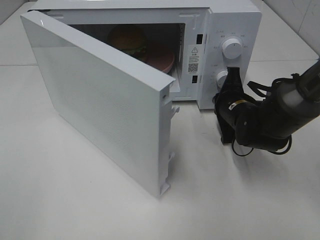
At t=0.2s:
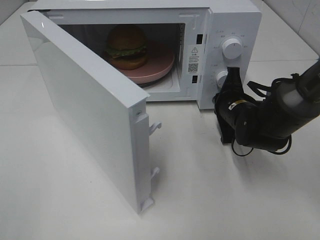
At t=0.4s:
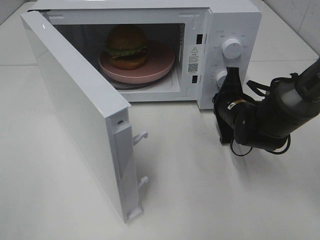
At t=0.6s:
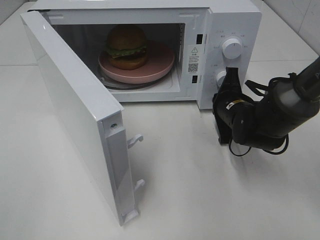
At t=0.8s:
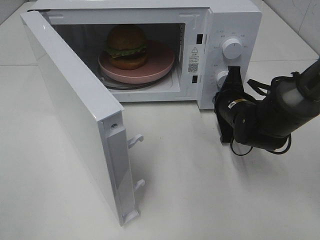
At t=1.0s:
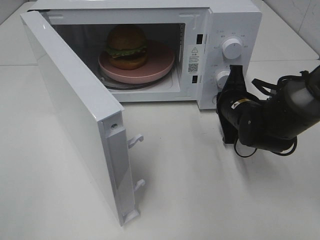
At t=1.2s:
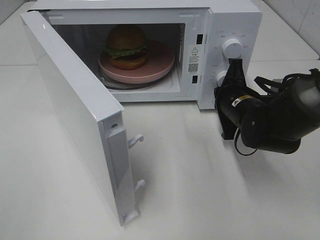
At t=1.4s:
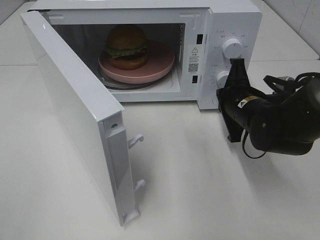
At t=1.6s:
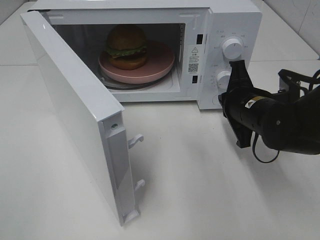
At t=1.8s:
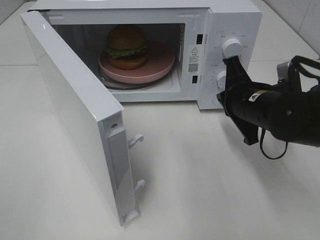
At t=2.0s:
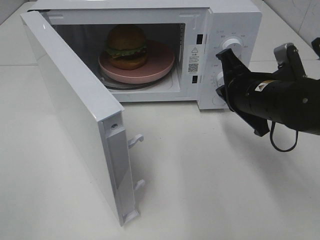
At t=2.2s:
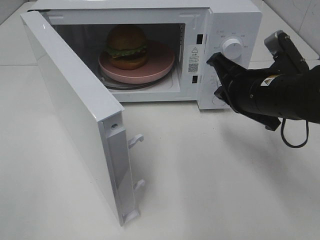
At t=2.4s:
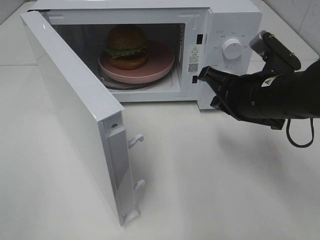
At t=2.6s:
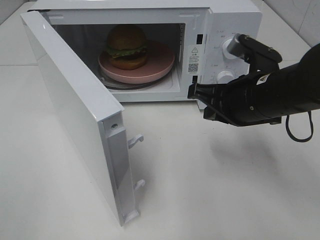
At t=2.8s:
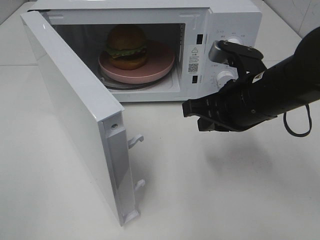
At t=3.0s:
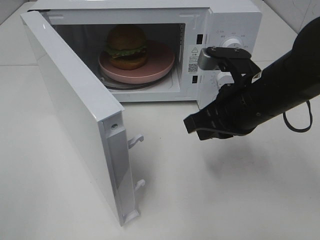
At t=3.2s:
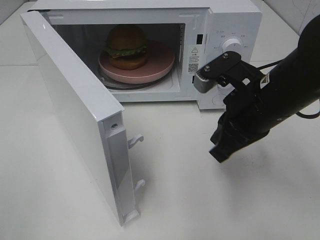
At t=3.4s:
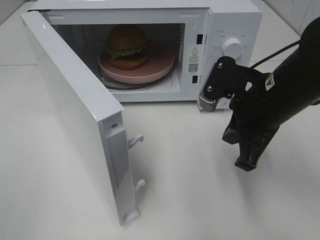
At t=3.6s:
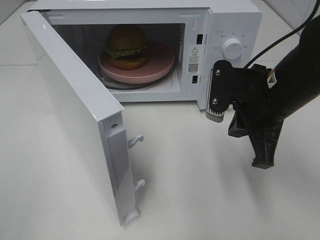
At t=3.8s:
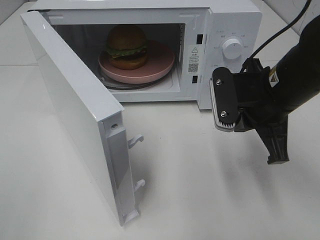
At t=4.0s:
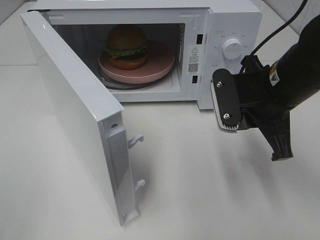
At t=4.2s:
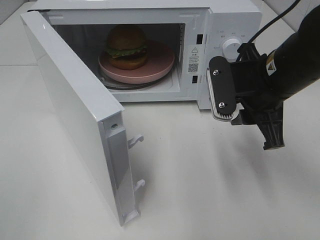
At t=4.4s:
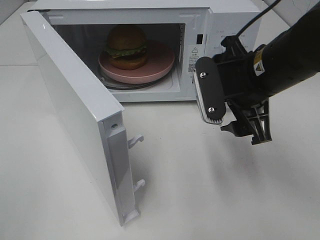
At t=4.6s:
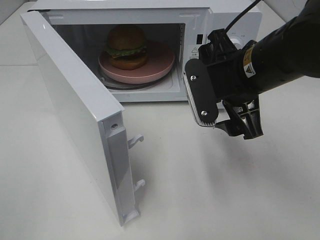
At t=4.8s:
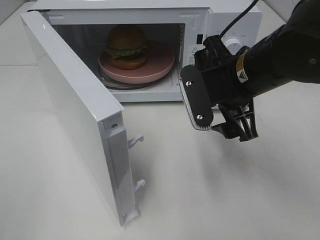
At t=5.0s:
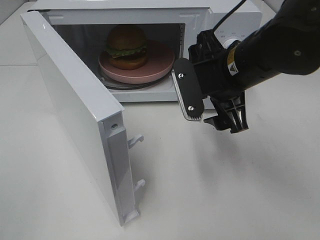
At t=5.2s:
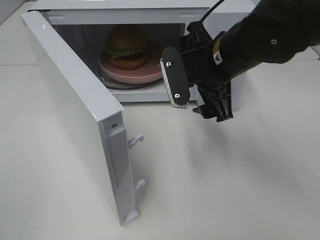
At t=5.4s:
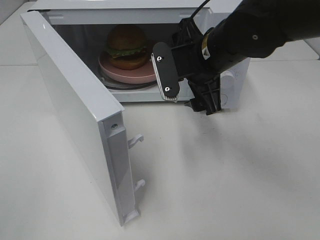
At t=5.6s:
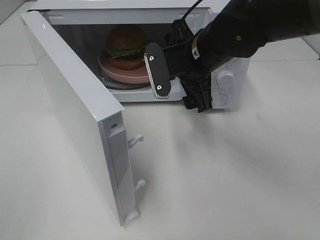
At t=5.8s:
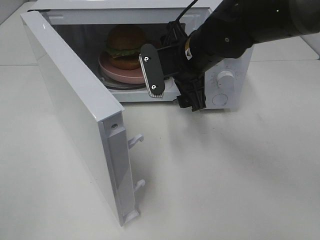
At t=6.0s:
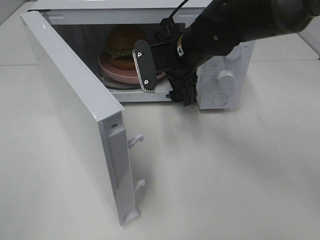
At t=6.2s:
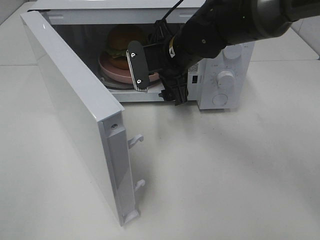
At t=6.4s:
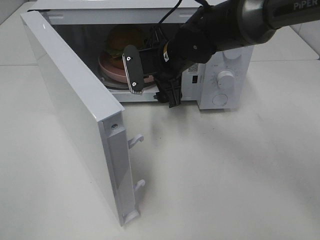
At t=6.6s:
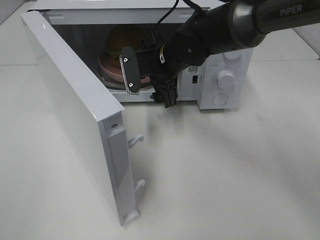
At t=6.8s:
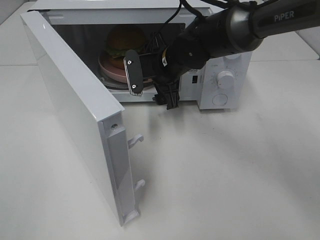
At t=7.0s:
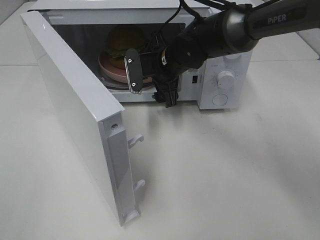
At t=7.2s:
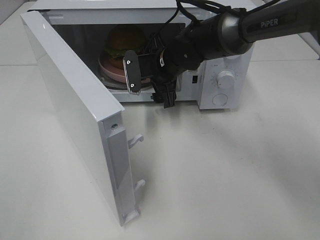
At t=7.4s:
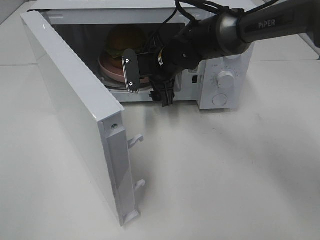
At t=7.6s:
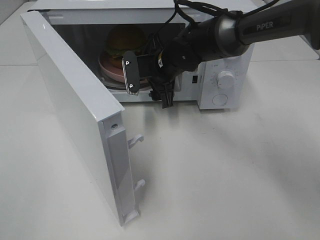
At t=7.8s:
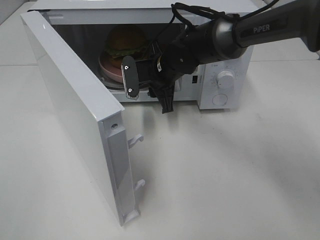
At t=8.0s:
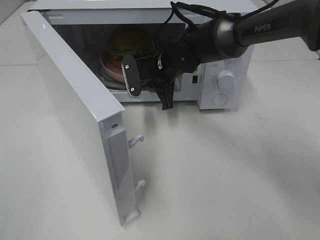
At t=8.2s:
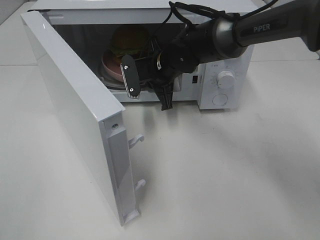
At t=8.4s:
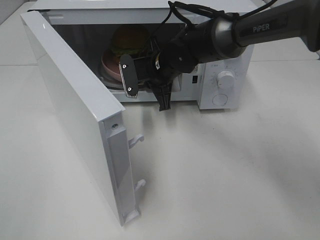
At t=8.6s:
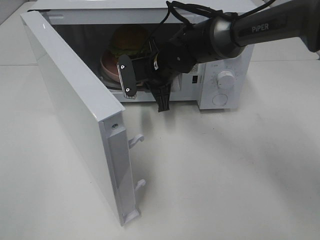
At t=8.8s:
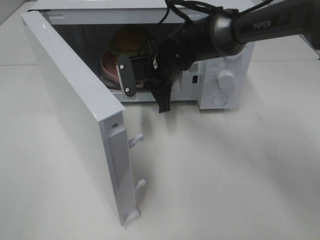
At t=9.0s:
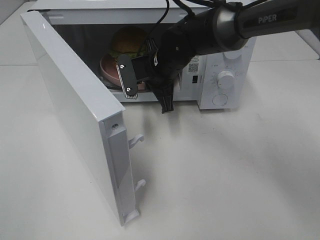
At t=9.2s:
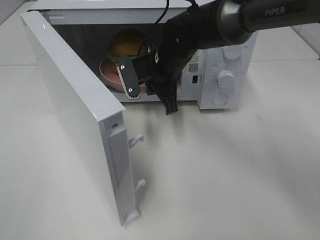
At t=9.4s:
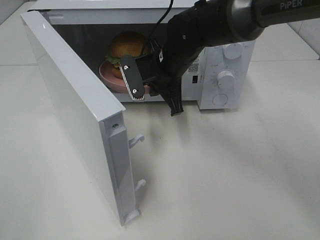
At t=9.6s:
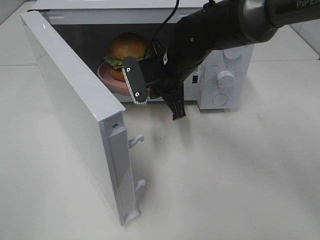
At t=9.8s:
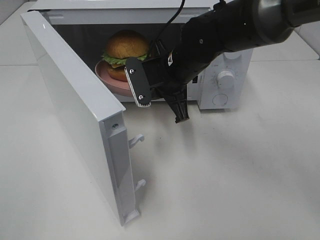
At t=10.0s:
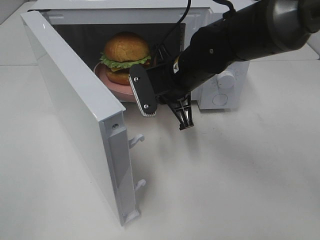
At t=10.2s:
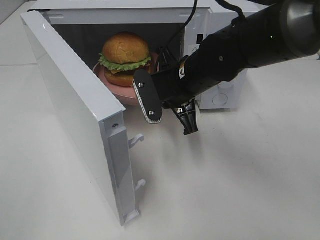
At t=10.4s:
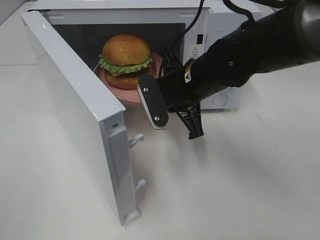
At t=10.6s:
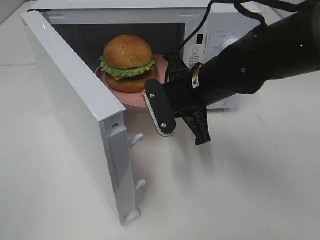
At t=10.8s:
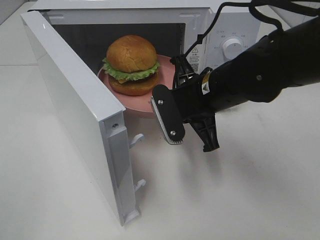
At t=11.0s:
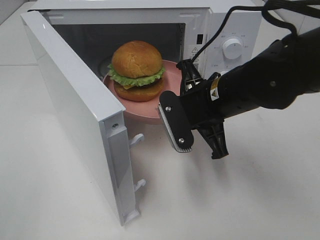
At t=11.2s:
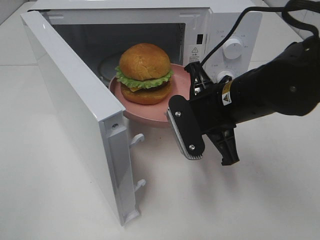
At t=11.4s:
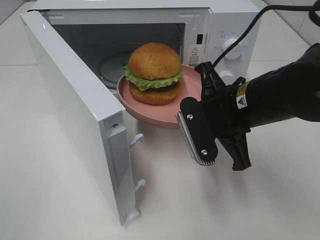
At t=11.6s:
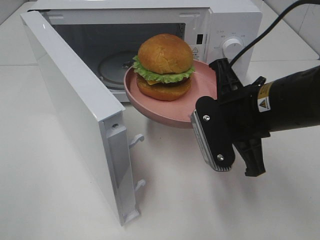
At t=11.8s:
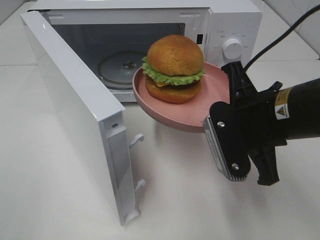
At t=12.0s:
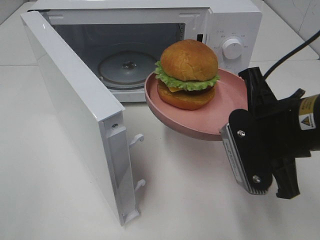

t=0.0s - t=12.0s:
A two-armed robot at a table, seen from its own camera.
Task of the whole recording: Heat the burger.
Step, t=1.2s - t=8.0s: Right hand: grab the plate with the hamburger.
t=0.0s - t=1.6s: The right gripper travels backward by some 5 cm.
t=1.6s - t=3.0s: The right gripper is displaced upward by roughly 5 cm.
t=3.0s - t=4.4s: The right gripper opens up.
t=4.4s - t=6.0s: The right gripper travels forward and to the left by about 15 cm.
t=6.0s - t=7.6s: The right gripper shifts some 10 cm downward and forward.
t=7.6s - t=9.0s: The right gripper closes its fingers.
t=9.0s - t=10.4s: The right gripper moves backward, approximately 10 cm.
t=10.4s - t=12.0s: The right gripper is displaced backward and to the right by approximately 15 cm.

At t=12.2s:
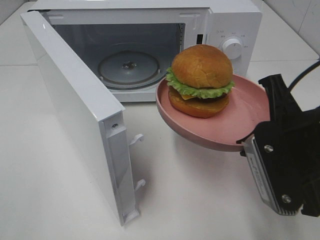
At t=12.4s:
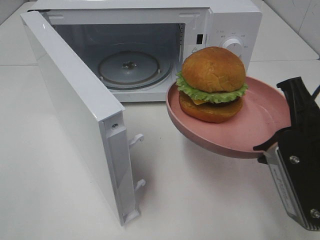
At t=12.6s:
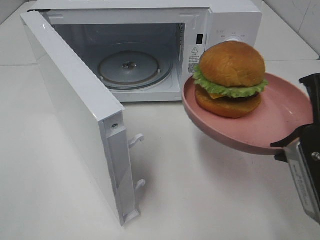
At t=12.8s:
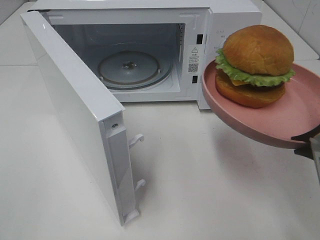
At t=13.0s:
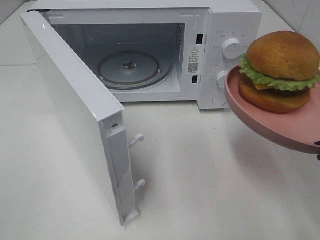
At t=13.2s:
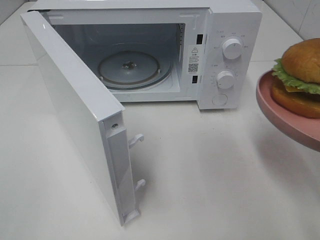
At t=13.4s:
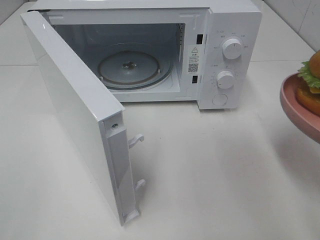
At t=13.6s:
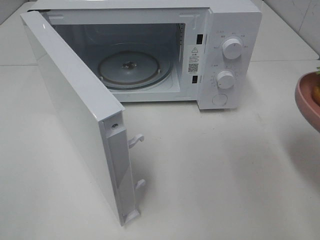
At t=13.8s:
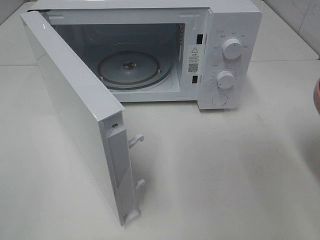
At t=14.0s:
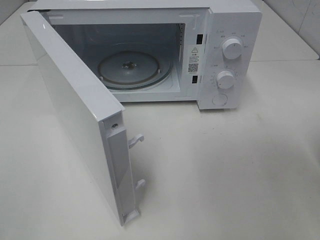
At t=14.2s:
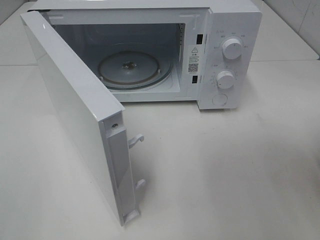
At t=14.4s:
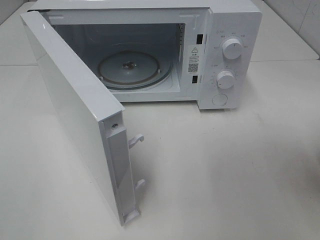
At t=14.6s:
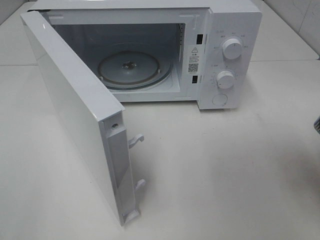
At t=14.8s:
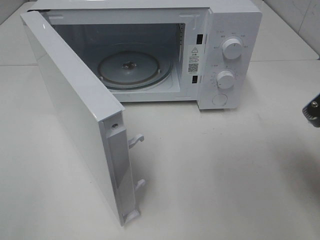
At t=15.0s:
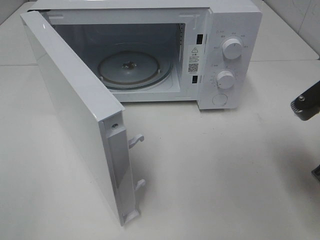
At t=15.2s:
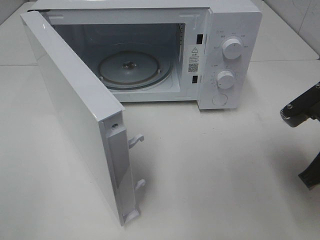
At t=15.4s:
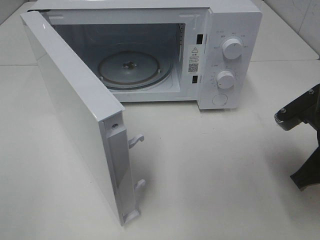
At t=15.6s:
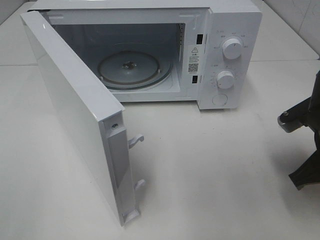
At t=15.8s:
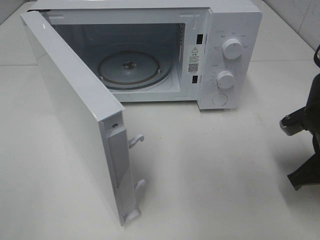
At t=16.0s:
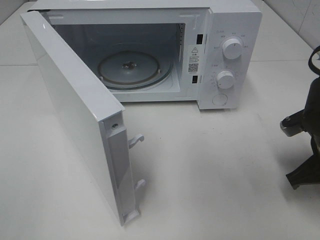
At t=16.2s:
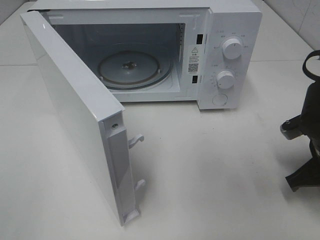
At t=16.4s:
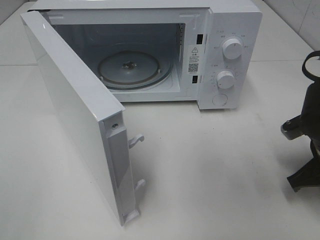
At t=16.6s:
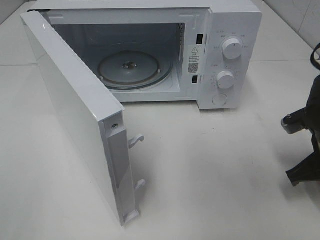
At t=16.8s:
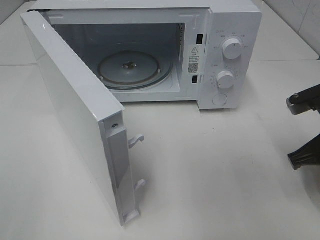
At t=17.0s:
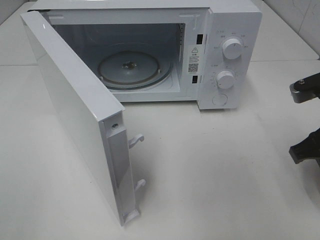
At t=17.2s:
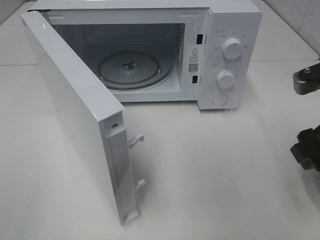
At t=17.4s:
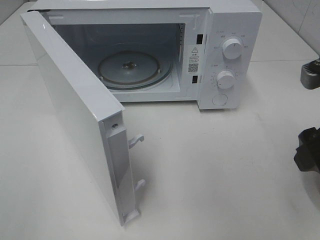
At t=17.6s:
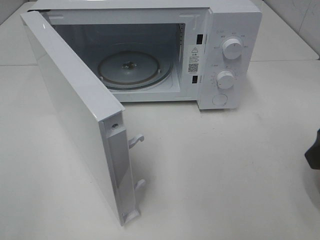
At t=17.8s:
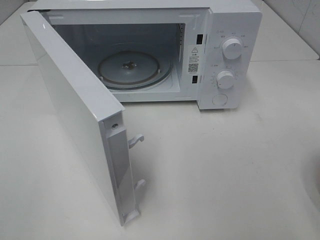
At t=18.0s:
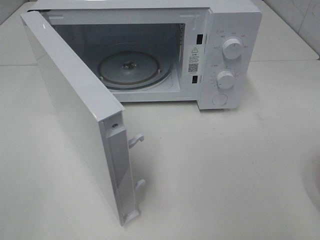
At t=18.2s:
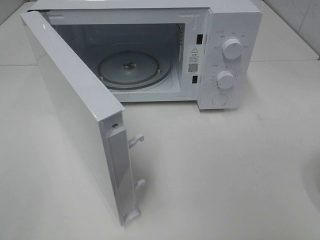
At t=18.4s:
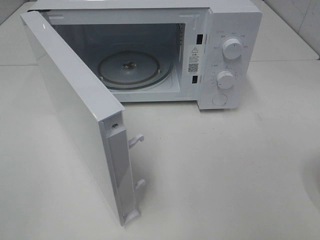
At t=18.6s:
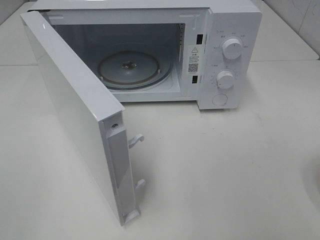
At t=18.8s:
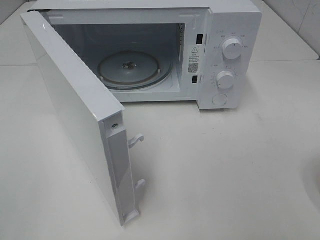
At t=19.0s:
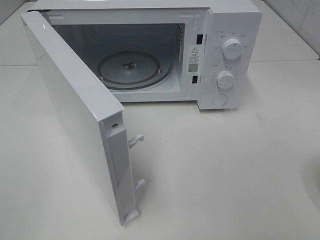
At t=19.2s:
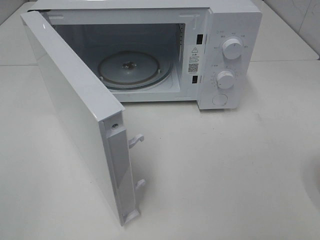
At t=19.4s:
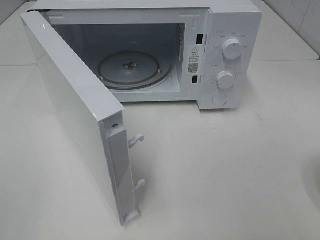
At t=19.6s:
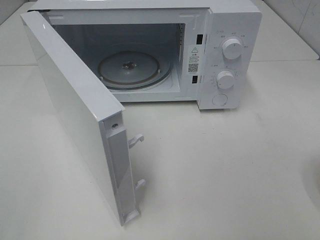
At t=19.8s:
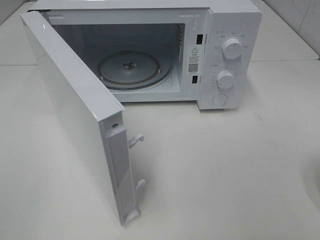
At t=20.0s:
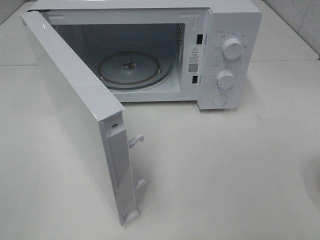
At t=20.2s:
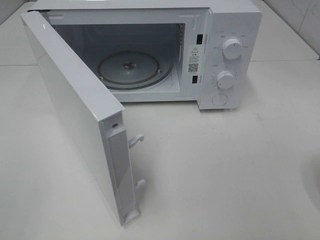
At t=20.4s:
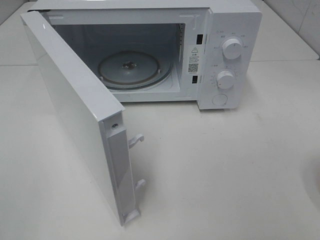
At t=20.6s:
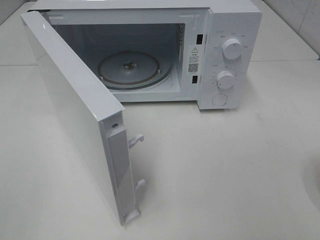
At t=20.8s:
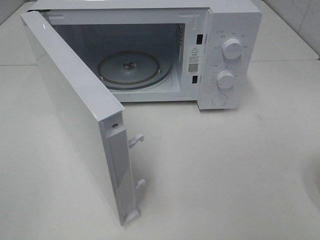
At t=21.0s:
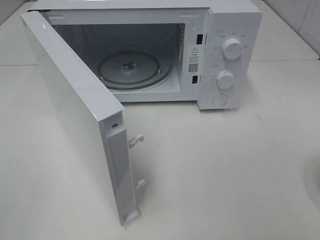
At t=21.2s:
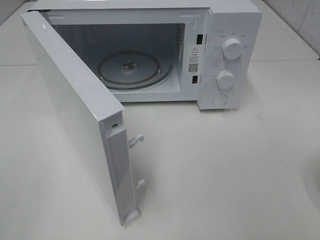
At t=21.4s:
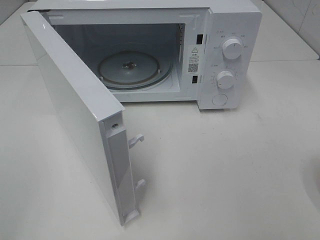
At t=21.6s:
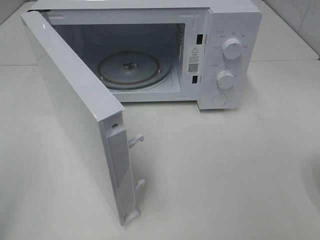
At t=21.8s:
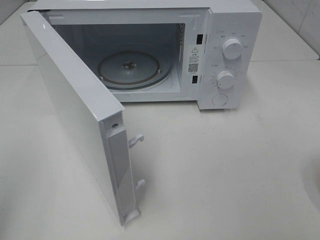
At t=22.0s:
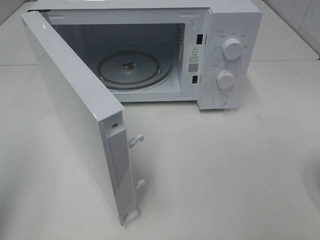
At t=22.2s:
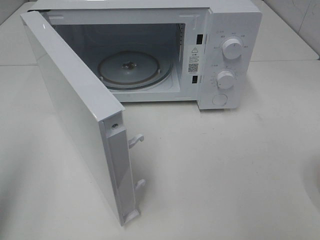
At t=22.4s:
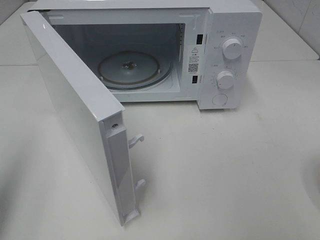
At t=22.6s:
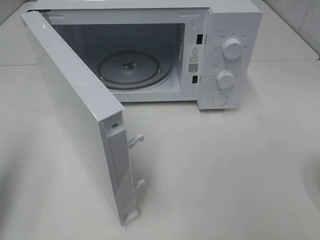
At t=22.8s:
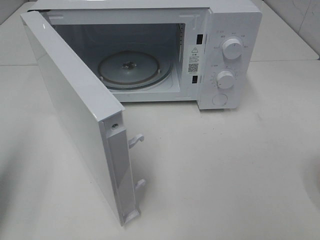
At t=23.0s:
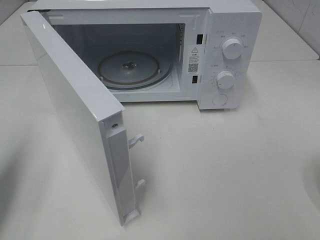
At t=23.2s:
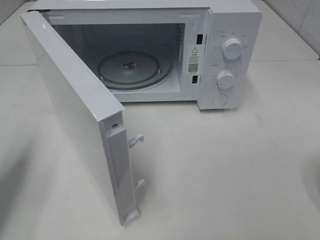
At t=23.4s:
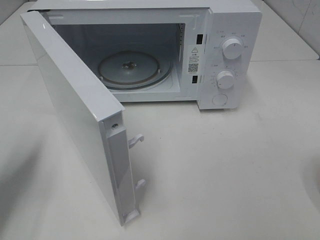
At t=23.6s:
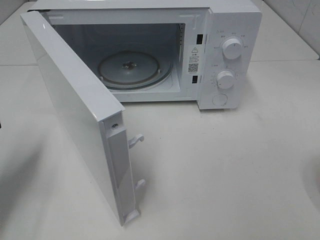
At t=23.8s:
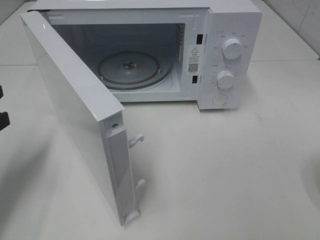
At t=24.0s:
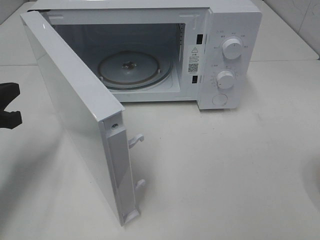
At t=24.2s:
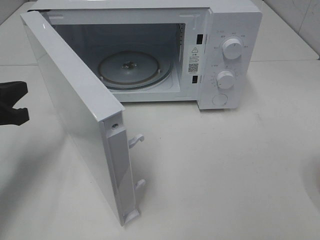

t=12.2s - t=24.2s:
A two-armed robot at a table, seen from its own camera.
Task of the whole recording: Heat the burger.
Step, t=12.2s - t=16.4s: Right hand: place the plate on the table.
t=12.2s - t=13.8s: The right gripper shifts roughly 10 cm to the right and backward.
t=13.8s - t=15.2s: The right gripper goes some 10 cm forward and downward.
t=15.2s - t=16.6s: The right gripper moves downward, about 5 cm.
t=16.6s - t=18.2s: The right gripper goes some 25 cm upward and backward, and opens.
t=19.8s - t=21.2s: Both grippers stay about where they are.
t=21.2s - t=22.6s: The left gripper heads forward, covering approximately 15 cm, and closes up.
t=22.6s - t=24.2s: The left gripper heads forward and downward, covering approximately 15 cm.
